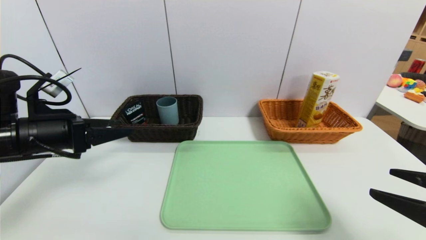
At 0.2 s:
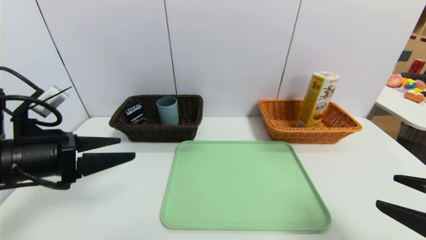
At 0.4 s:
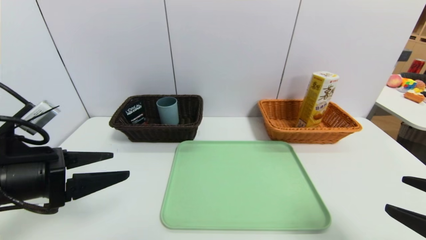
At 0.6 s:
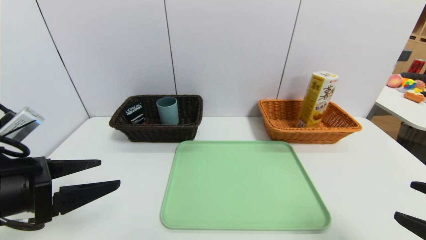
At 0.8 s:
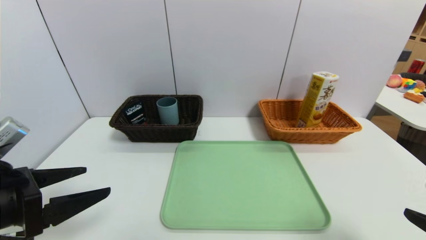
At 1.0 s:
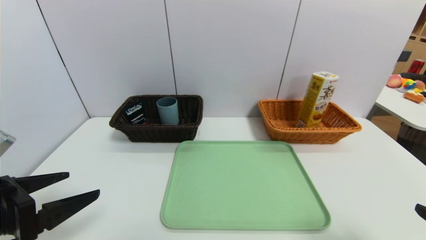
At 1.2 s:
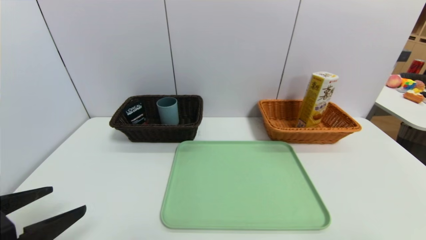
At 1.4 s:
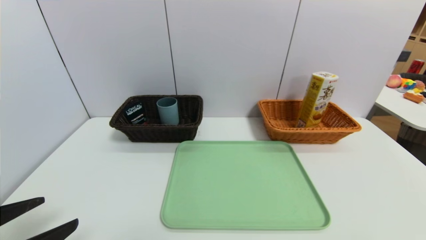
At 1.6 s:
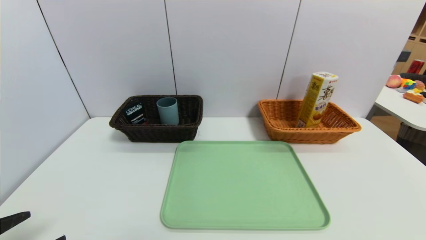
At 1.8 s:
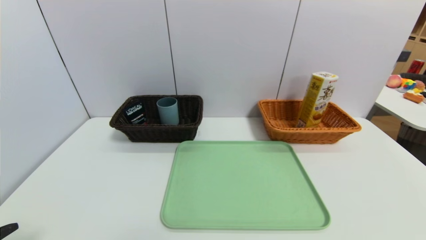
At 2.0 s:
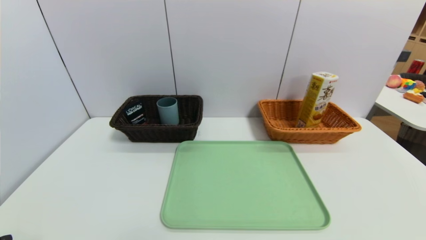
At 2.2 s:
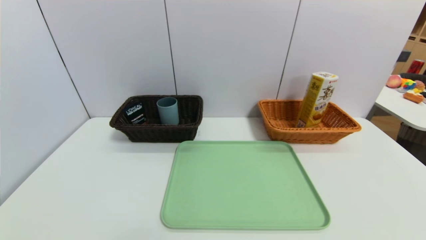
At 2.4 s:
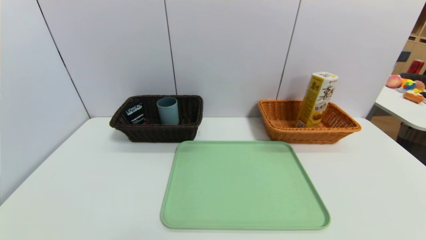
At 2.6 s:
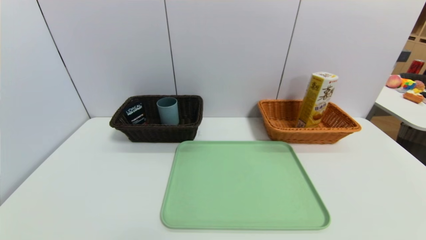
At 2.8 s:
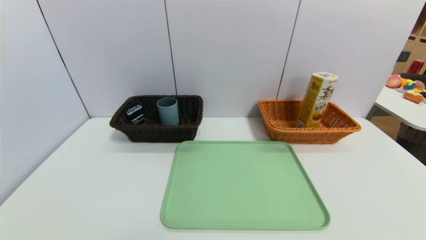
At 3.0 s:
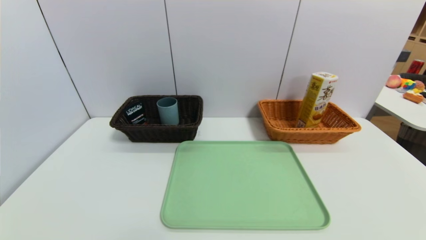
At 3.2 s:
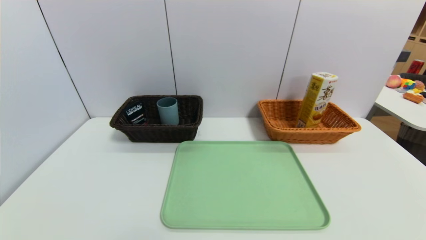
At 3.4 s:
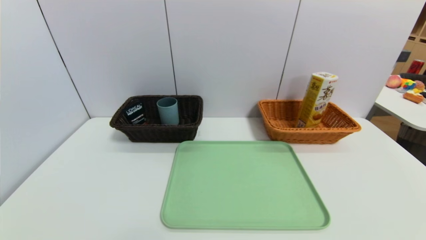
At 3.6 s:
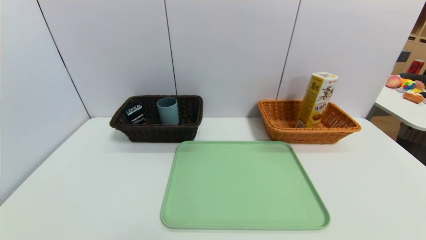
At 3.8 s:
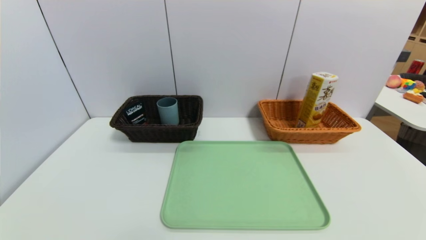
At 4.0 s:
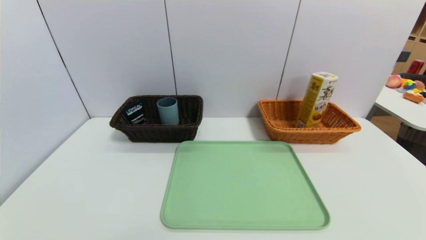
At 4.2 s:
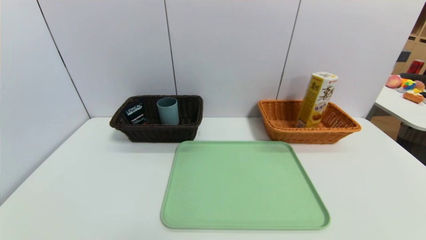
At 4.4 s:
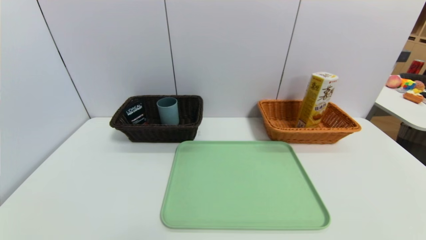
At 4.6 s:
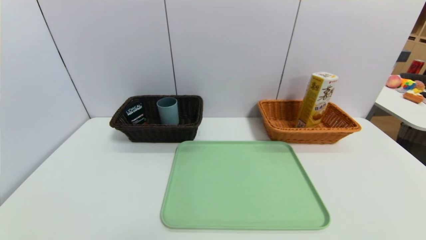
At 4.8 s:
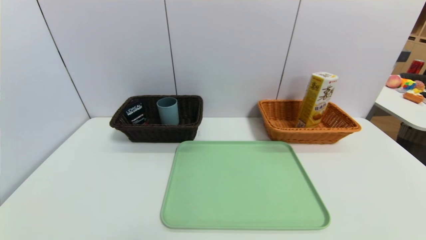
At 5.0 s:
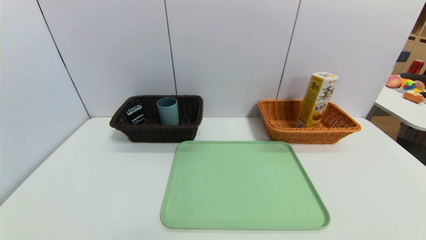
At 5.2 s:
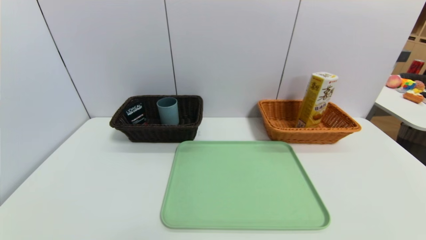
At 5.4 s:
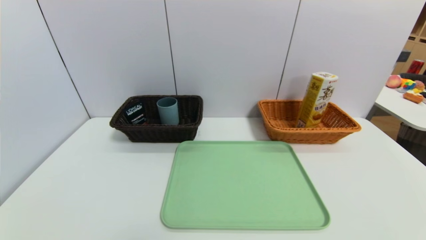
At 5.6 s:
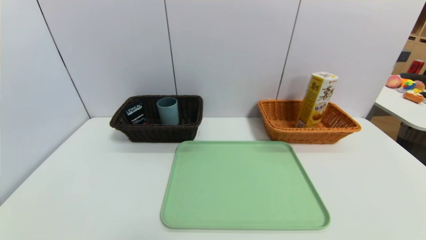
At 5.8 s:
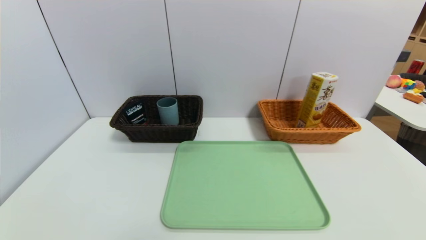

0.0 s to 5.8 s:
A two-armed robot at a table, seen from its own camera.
Task of the whole recording: place the food in the right basket with the right gripper, and place the non food items in the left basket with the left gripper.
0.0 to 1.4 s: The right gripper shifts some 10 cm backward; the left gripper moves backward, approximately 15 cm.
1.4 to 2.8 s: The left gripper travels backward and downward by some 10 cm.
4.4 to 5.8 s: Neither gripper changes place.
